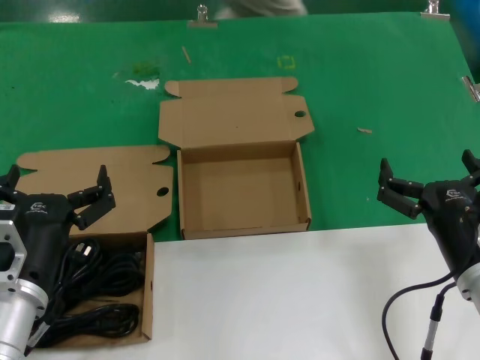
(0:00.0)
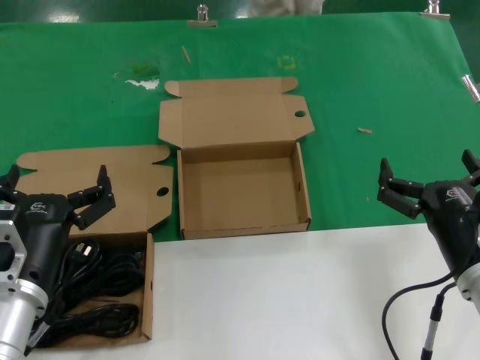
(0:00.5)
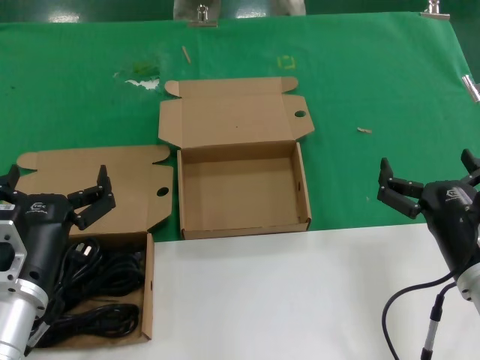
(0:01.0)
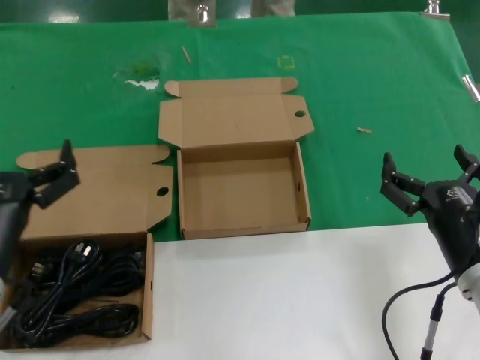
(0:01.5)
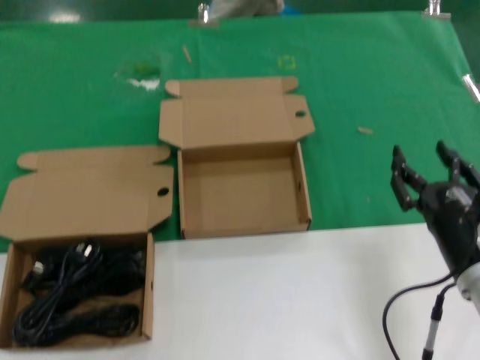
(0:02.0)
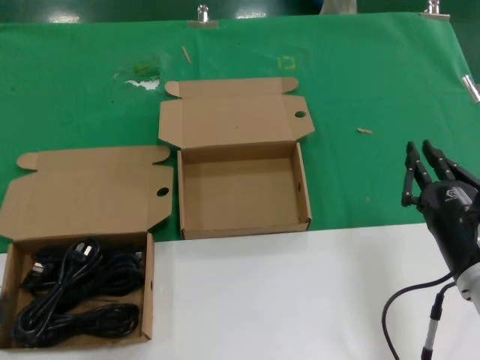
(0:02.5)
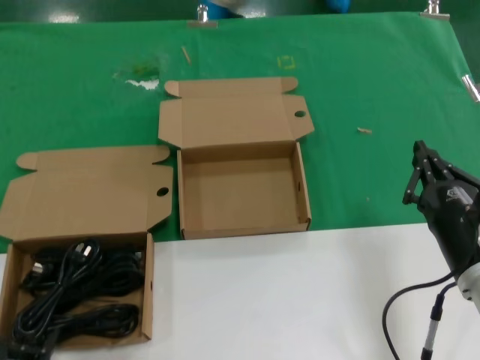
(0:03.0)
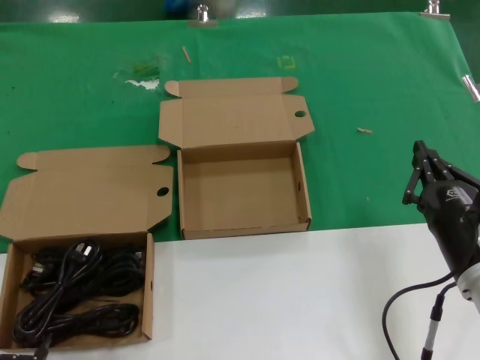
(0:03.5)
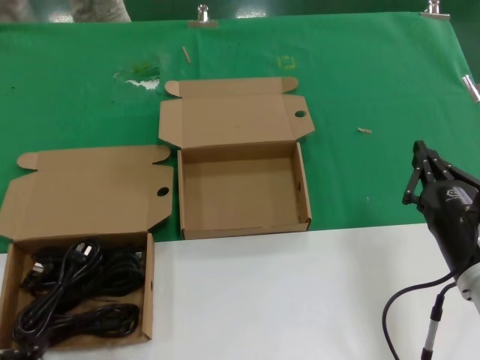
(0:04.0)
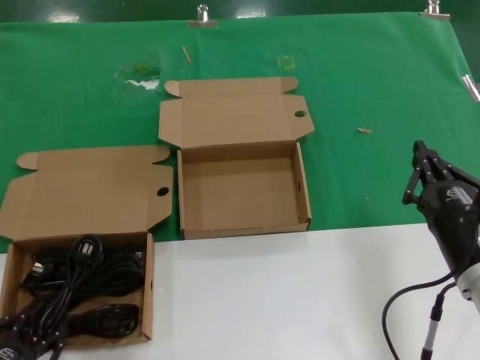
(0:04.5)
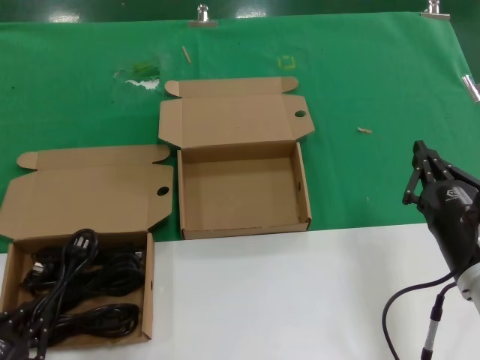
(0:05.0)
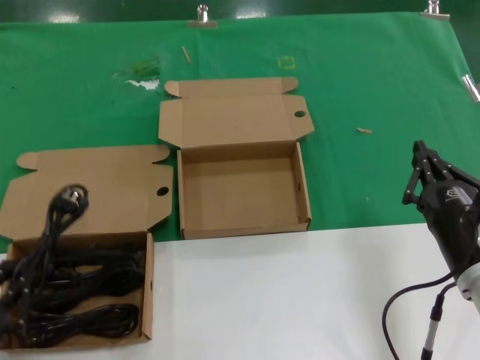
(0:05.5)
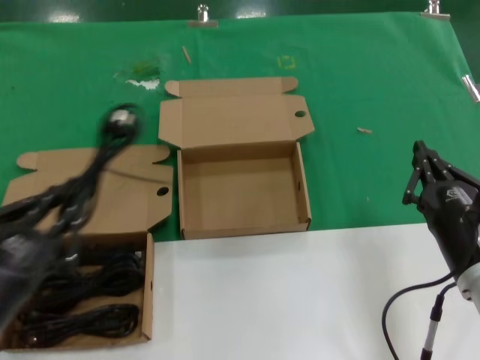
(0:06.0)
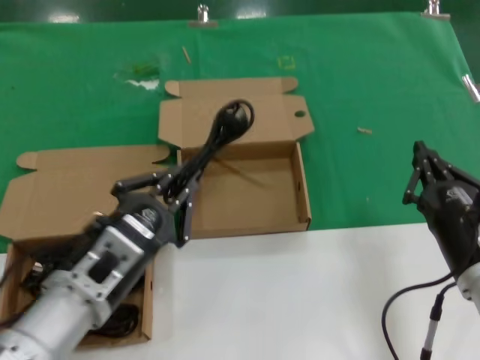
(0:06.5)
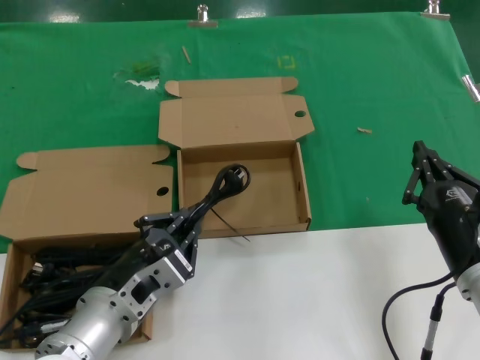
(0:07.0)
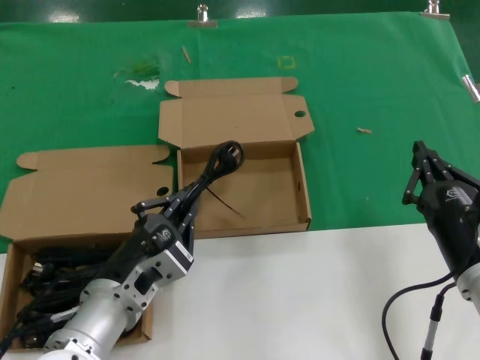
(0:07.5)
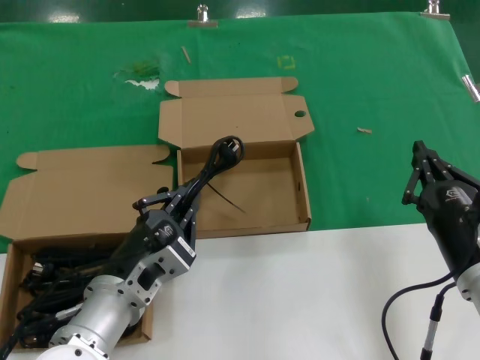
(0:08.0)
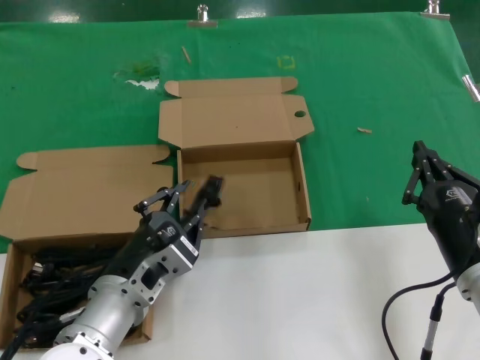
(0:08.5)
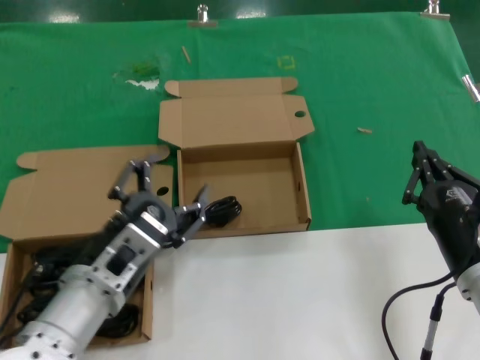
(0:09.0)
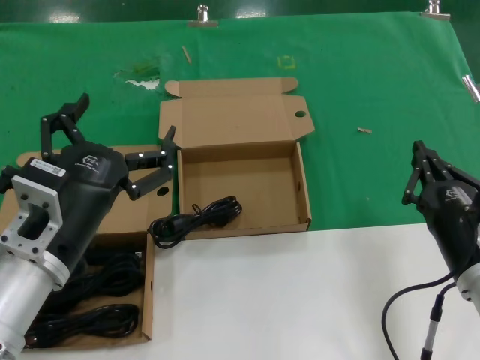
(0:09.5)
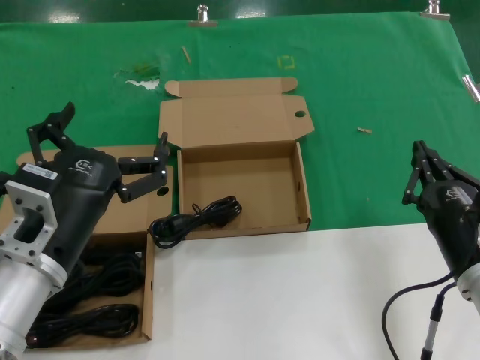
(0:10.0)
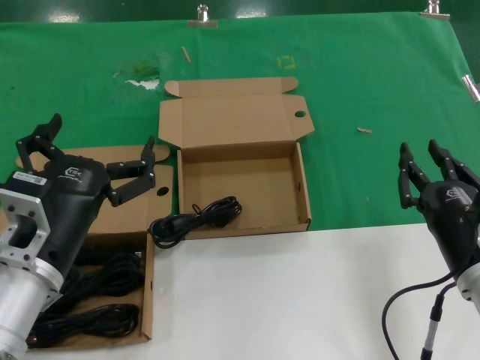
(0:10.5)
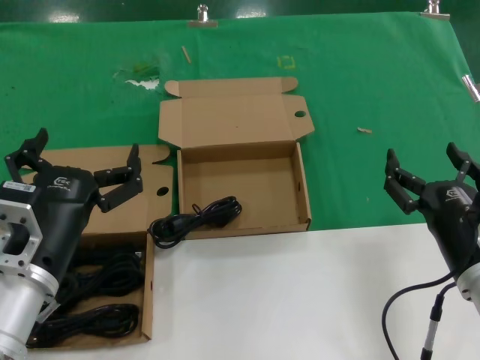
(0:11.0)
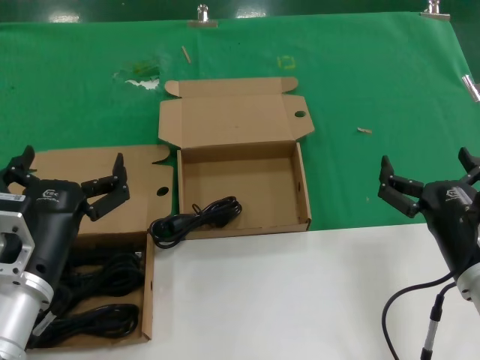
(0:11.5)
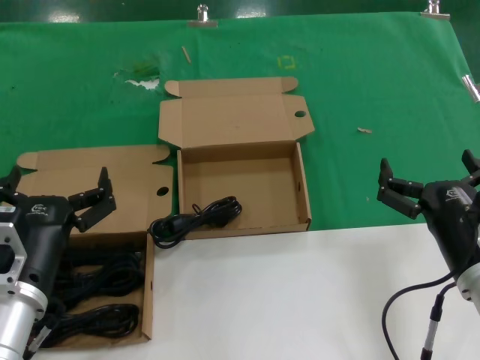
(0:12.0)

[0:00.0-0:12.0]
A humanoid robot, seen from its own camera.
Task of the whole recording: Pick up the power cord from the box containing it and place it in another box.
Step, 0:00.0 to 0:04.5: Grasp the data cable.
Step, 0:05.0 to 0:08.5: Place the data cable in the another box.
0:00.0 to 0:02.0: The left hand goes about 15 cm to the left, upward and backward.
0:02.0 to 0:04.0: The left hand travels downward by roughly 10 cm.
0:04.0 to 0:06.0: The left hand is displaced upward and to the right by approximately 15 cm.
0:06.0 to 0:08.0: The left hand goes some 20 cm to the right, forward and downward.
0:08.0 to 0:10.0: The left hand shifts some 10 cm upward and to the left.
0:10.0 to 0:12.0: The left hand travels downward by some 5 cm.
